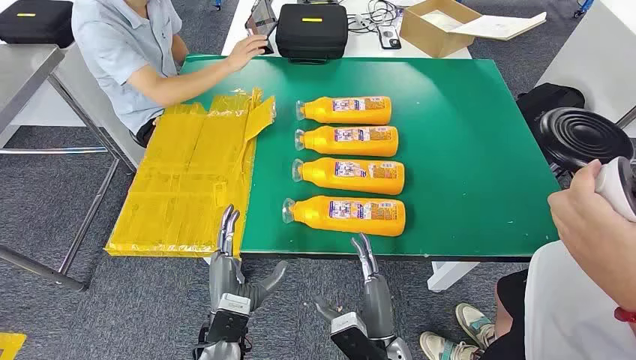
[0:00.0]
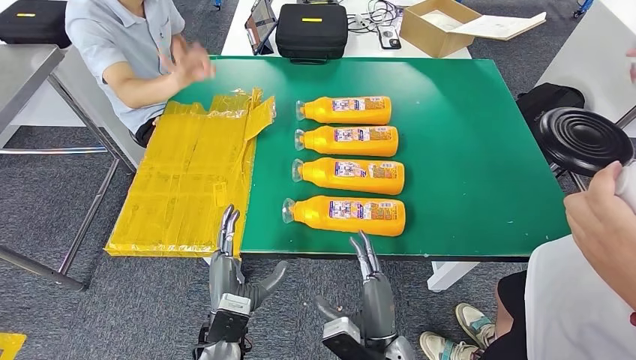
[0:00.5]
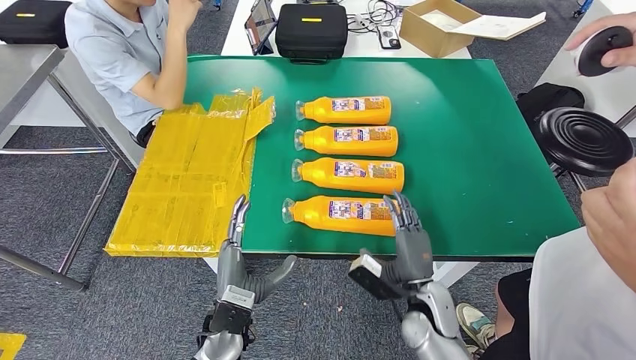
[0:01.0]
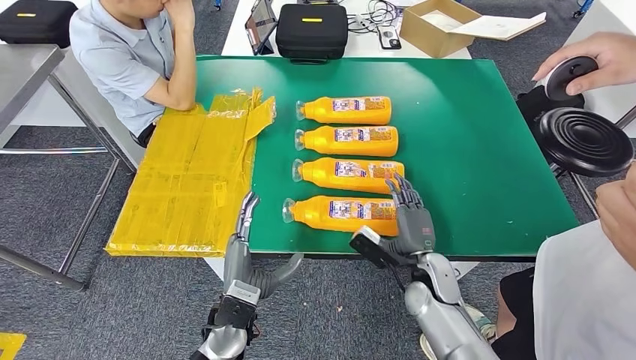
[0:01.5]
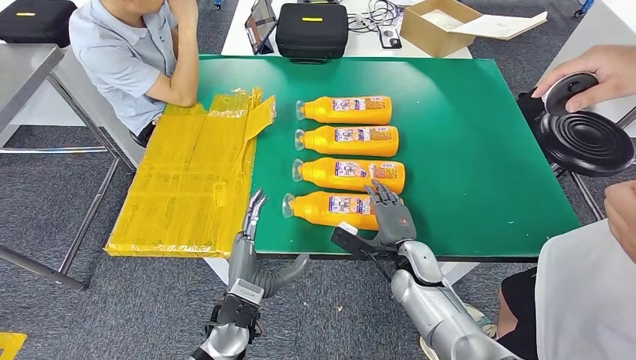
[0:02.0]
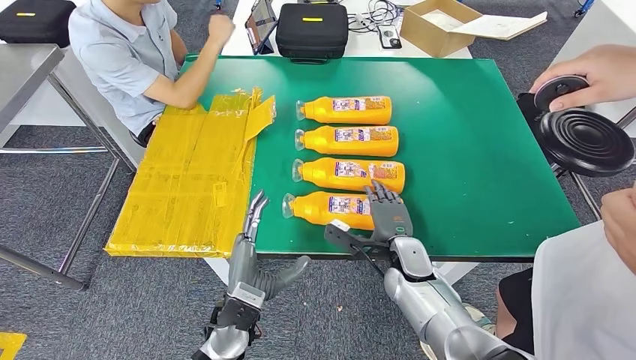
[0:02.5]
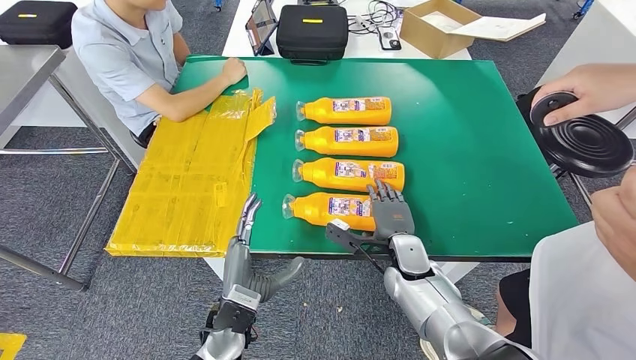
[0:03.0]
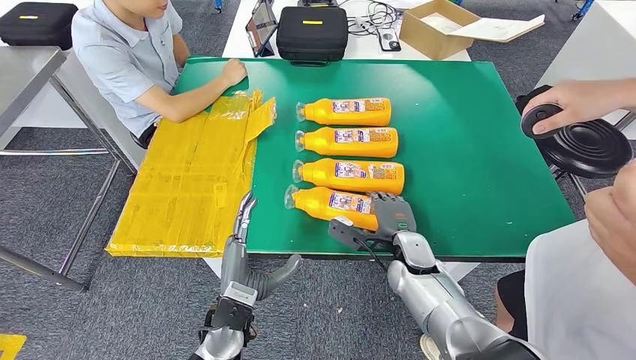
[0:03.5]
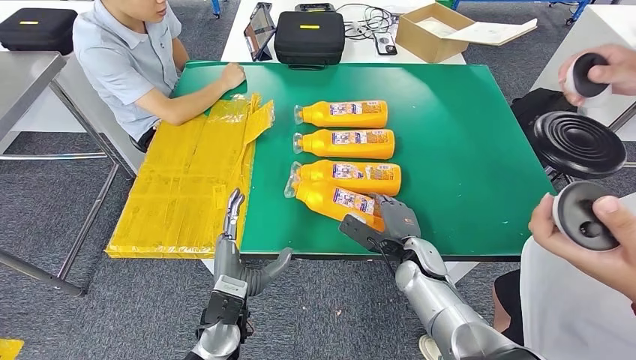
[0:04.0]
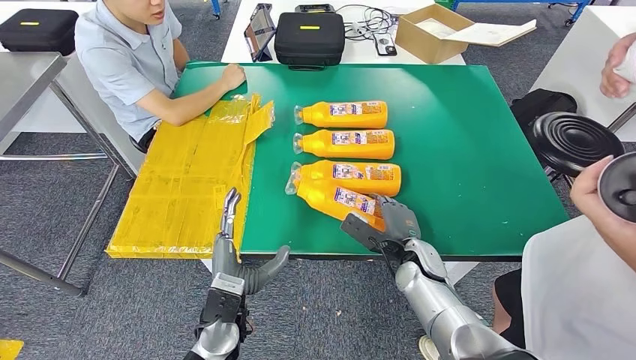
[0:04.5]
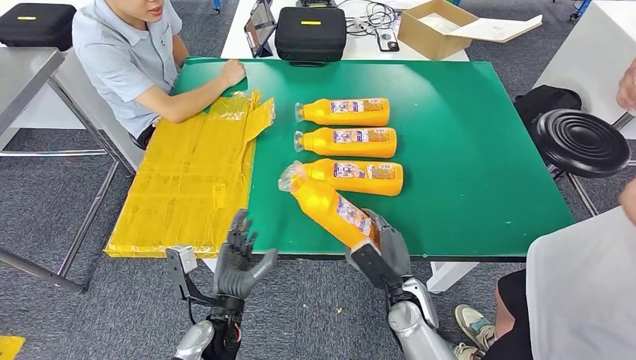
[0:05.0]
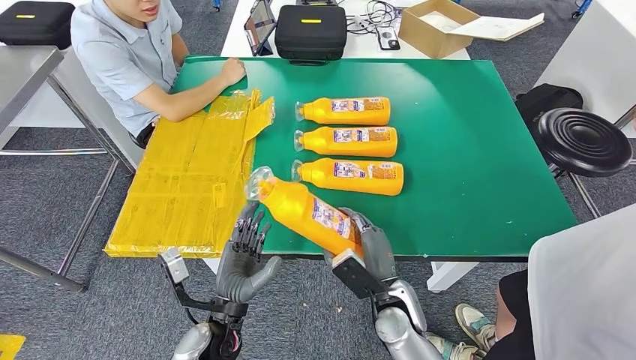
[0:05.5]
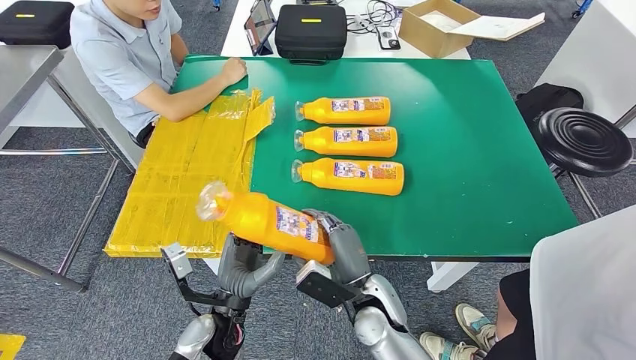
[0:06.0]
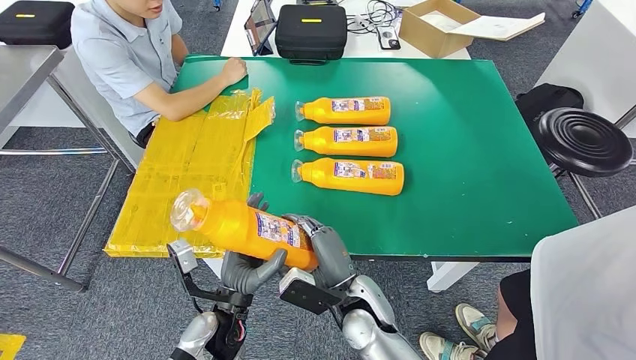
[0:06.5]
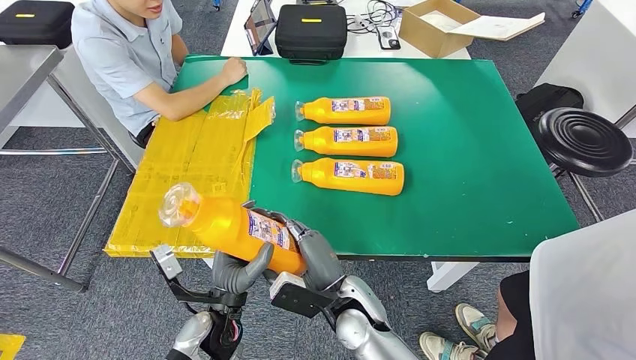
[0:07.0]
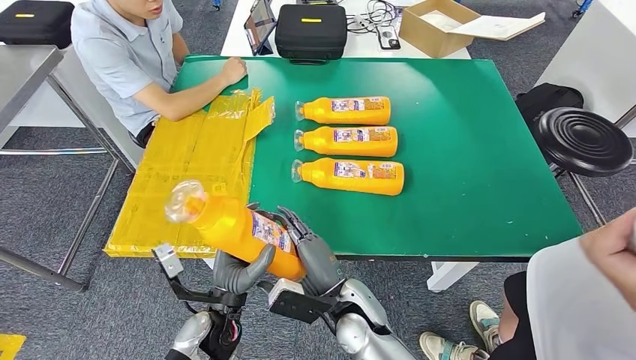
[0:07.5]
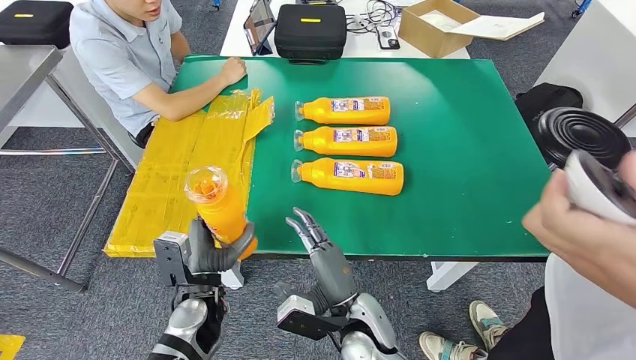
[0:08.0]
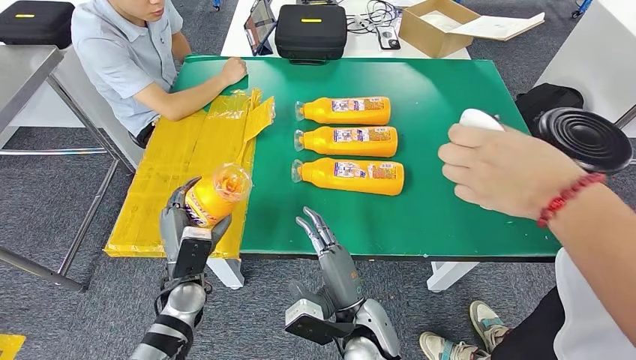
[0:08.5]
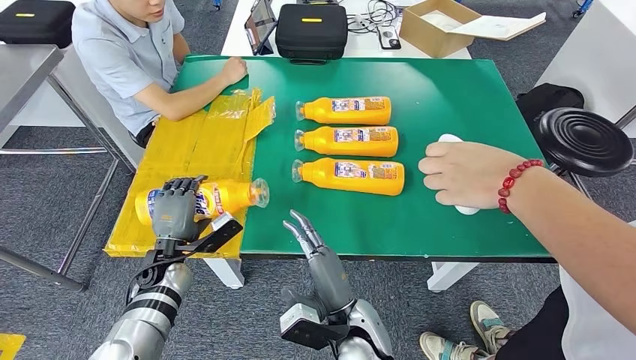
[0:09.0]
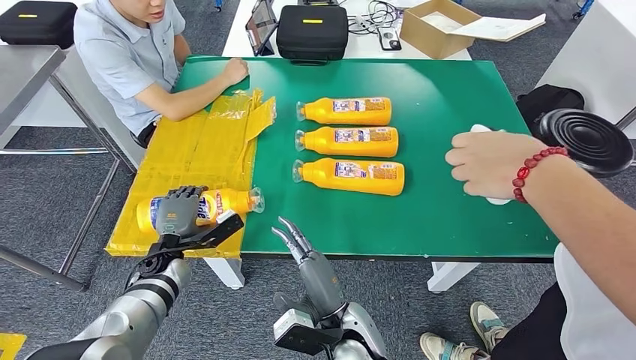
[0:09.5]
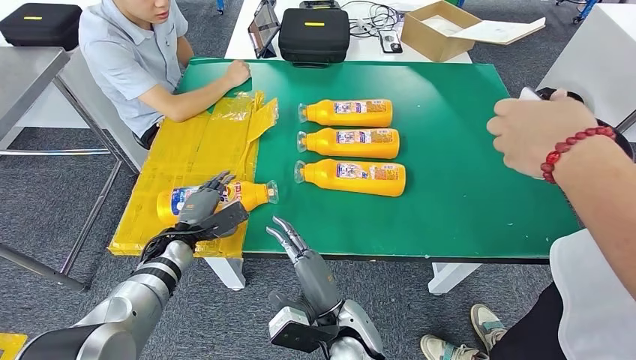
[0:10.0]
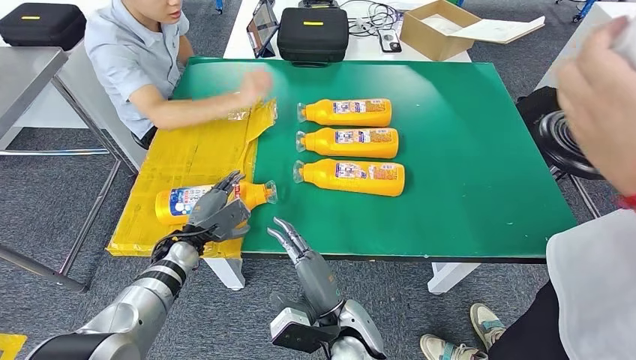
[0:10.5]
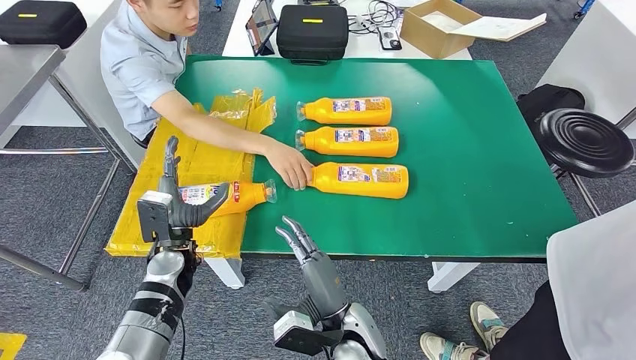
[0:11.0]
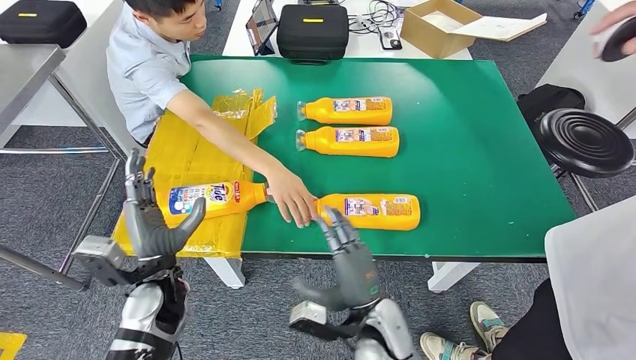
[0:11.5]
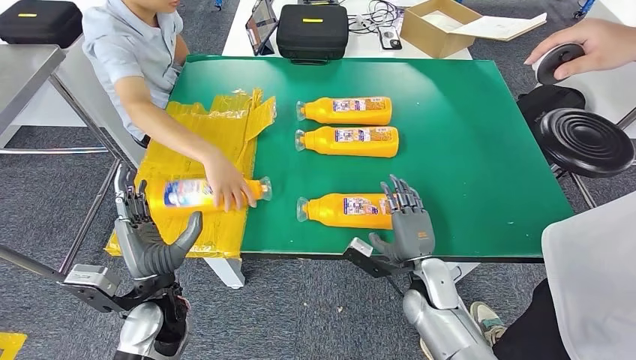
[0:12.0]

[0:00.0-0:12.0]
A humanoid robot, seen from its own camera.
Step, 0:00.0 to 0:05.0: Take the fast-moving consumer goods bottle from the table.
Step, 0:06.0 to 0:09.5: Flip the fast-moving consumer goods bottle to the front side.

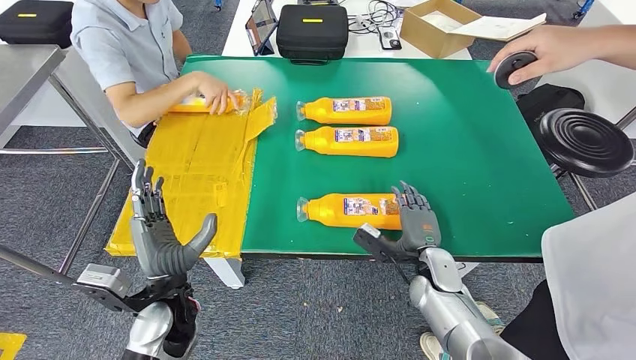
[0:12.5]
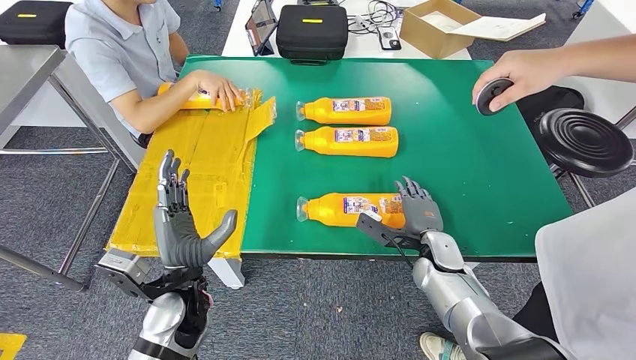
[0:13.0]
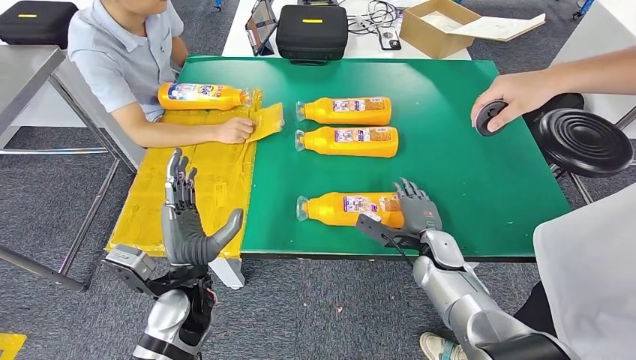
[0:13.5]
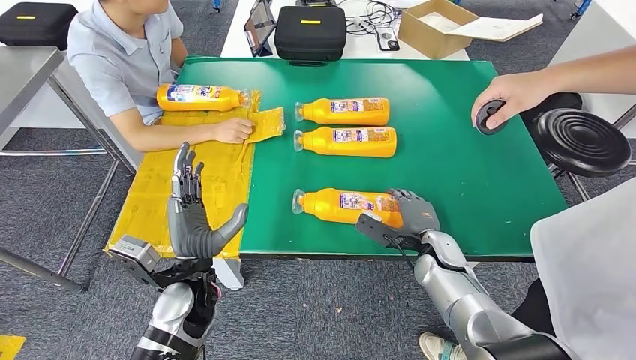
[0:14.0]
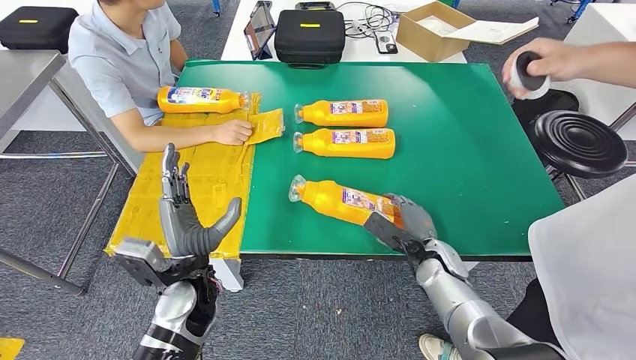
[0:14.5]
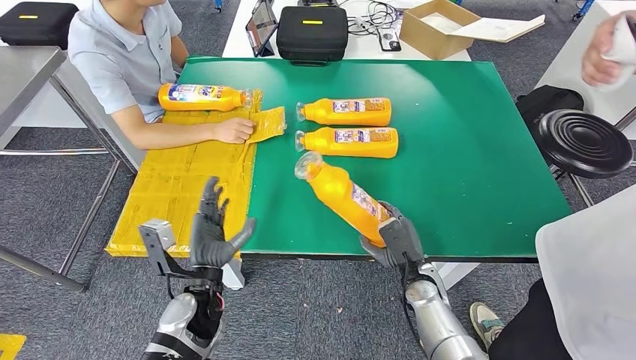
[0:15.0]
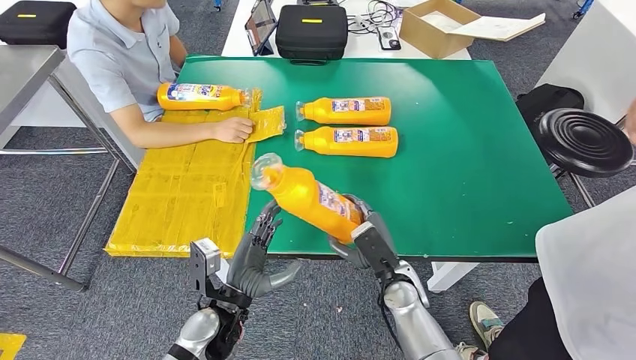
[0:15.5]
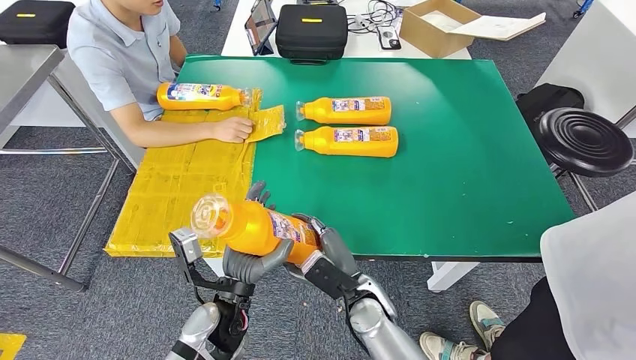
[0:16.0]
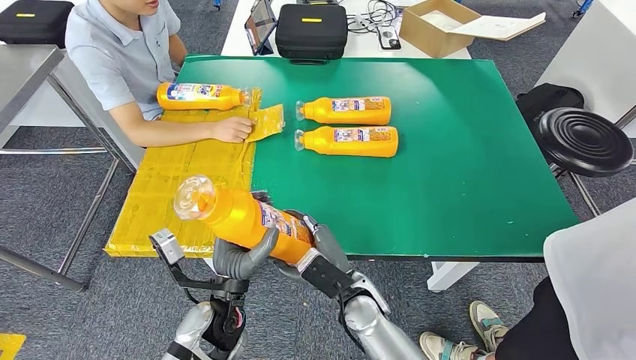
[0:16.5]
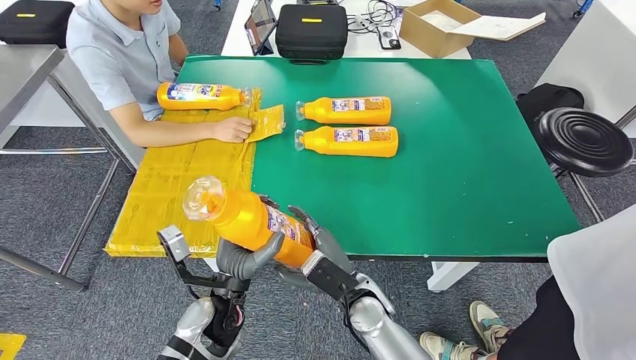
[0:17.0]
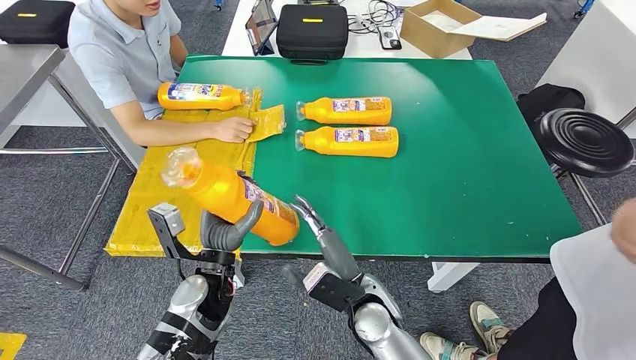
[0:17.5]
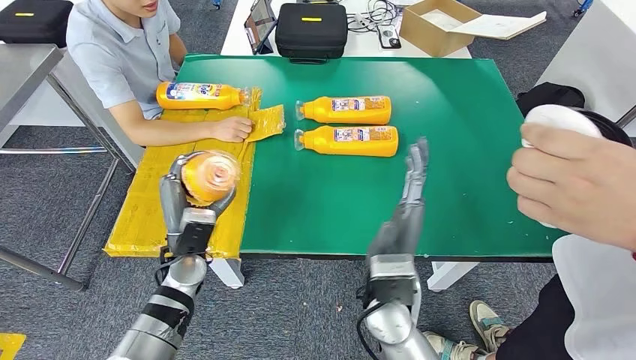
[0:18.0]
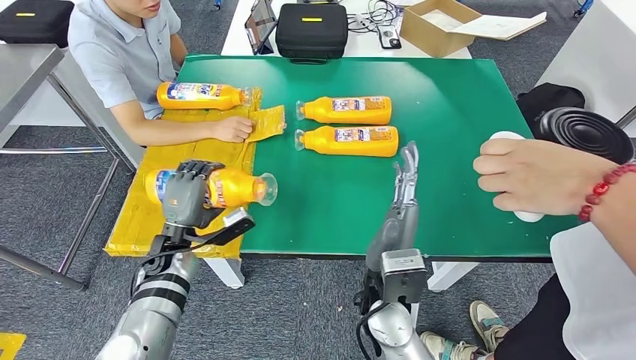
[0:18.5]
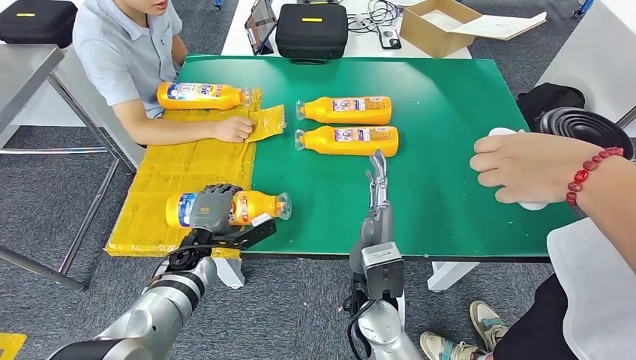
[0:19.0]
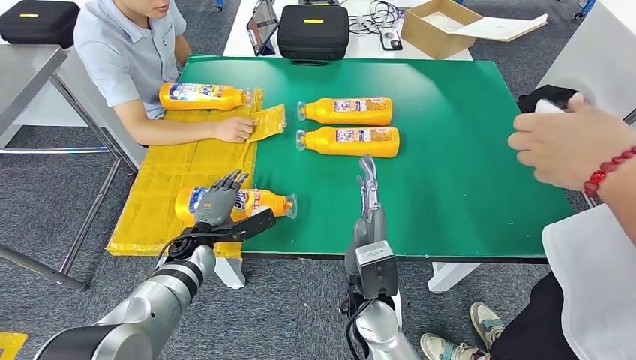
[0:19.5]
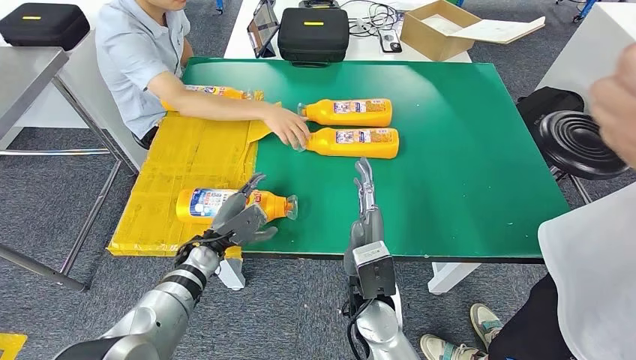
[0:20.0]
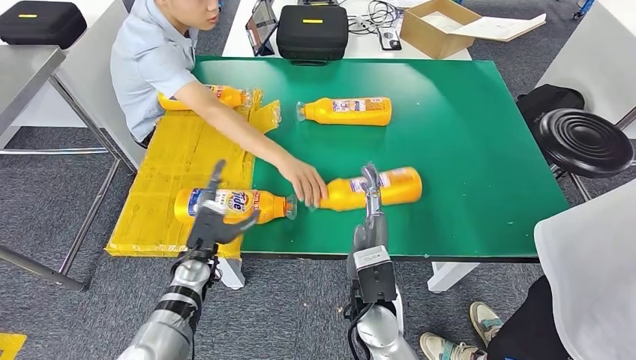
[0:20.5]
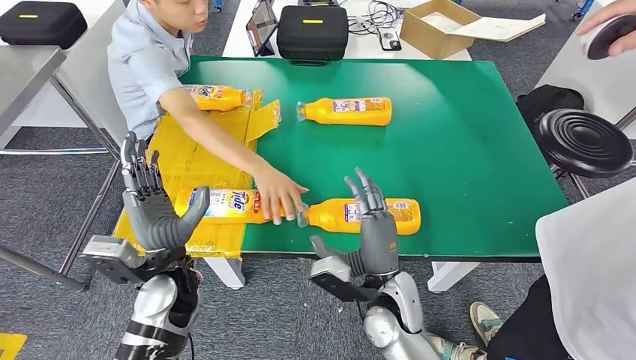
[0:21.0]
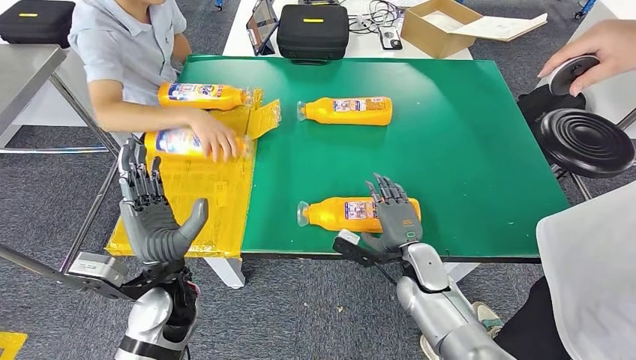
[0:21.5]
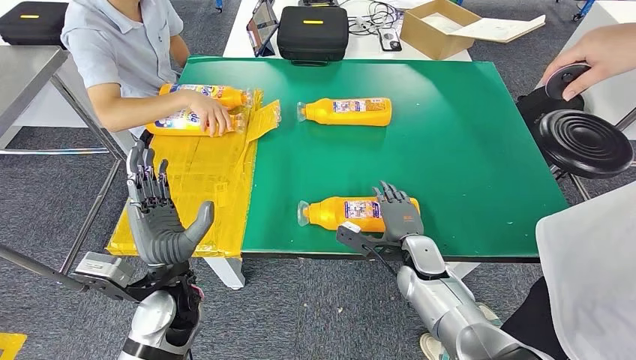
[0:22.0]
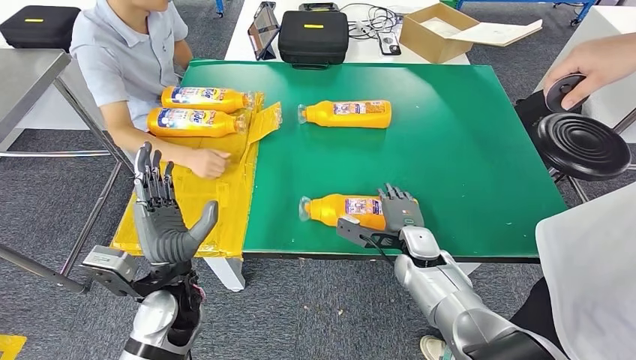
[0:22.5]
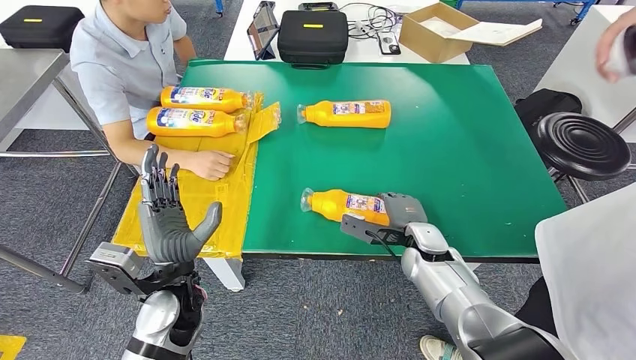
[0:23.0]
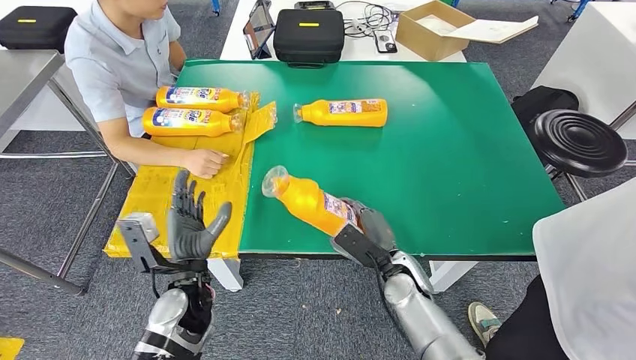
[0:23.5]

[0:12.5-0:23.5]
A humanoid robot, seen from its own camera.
Step, 0:12.5 to 0:16.0: Pick up the fast-moving consumer goods bottle from the table.
Step, 0:17.0 to 0:19.0: Flip the fast-moving consumer goods bottle to the front side.
